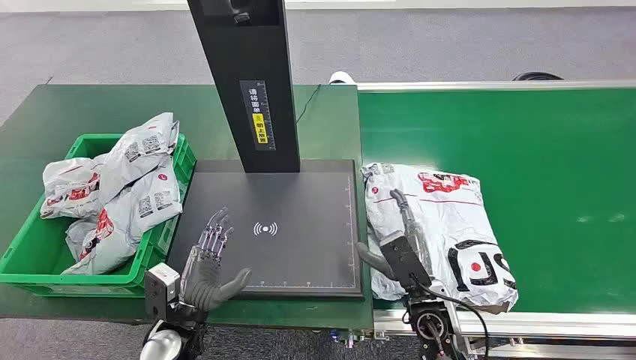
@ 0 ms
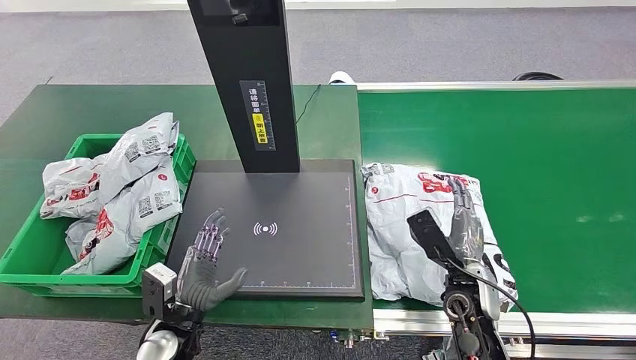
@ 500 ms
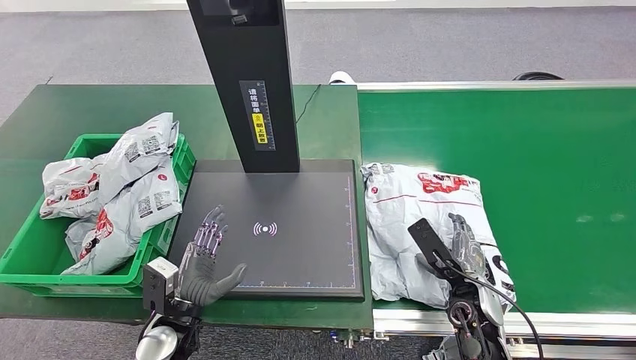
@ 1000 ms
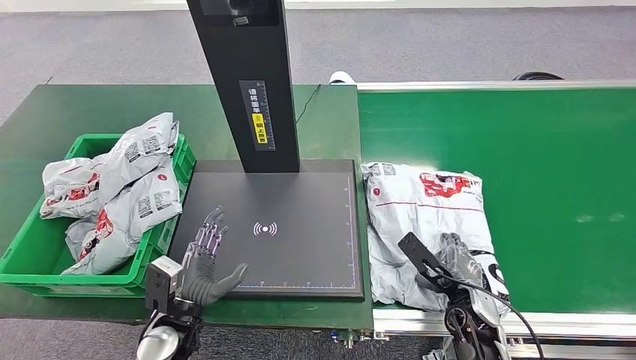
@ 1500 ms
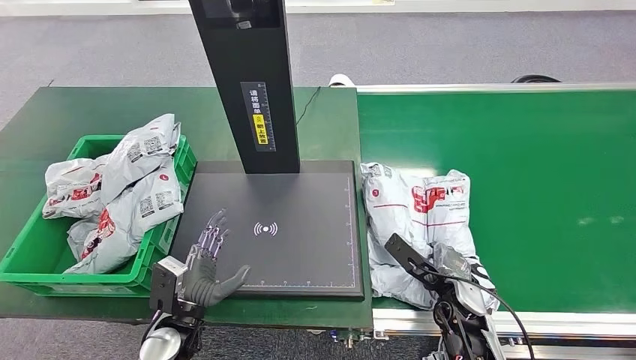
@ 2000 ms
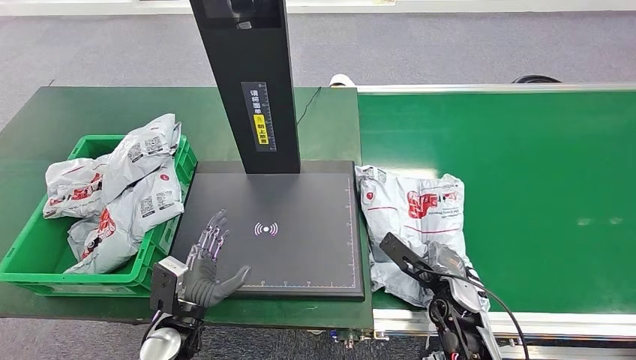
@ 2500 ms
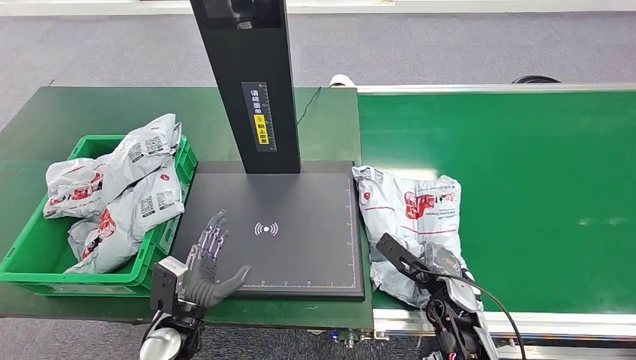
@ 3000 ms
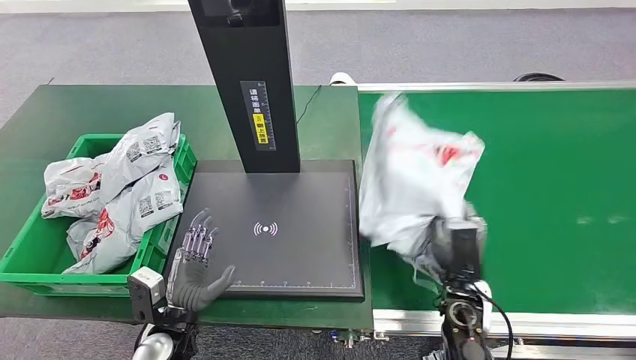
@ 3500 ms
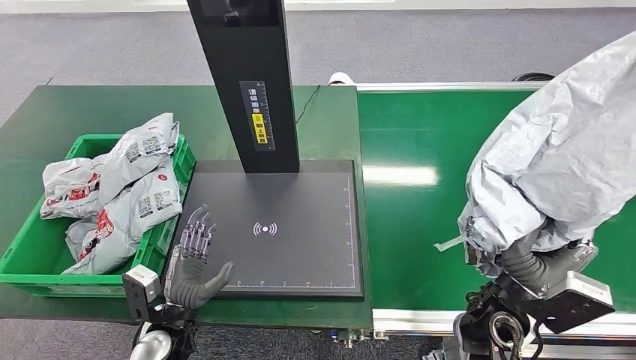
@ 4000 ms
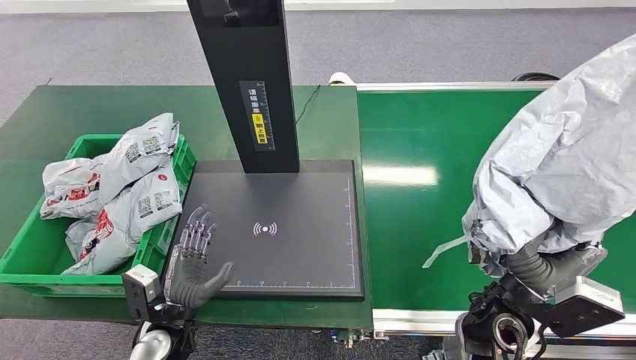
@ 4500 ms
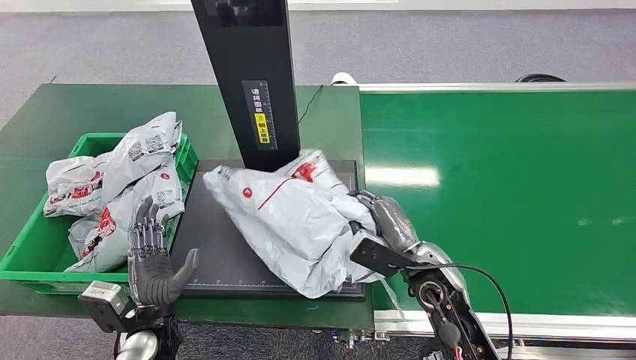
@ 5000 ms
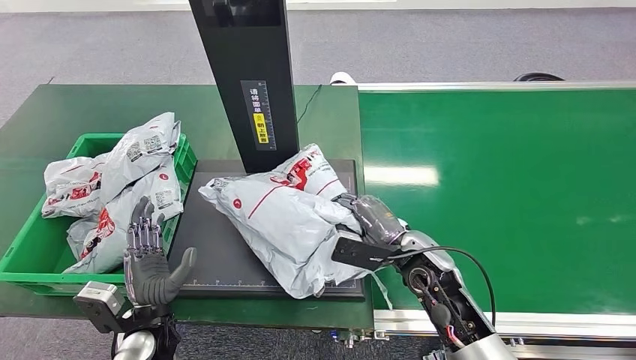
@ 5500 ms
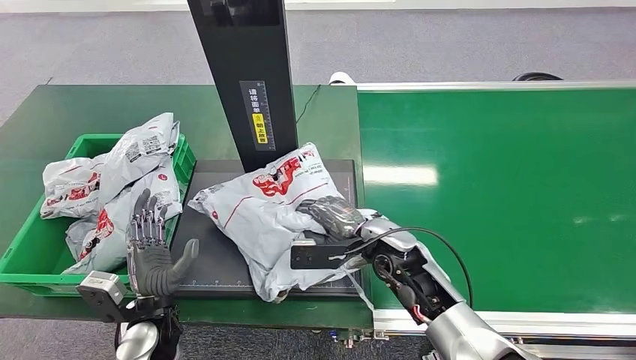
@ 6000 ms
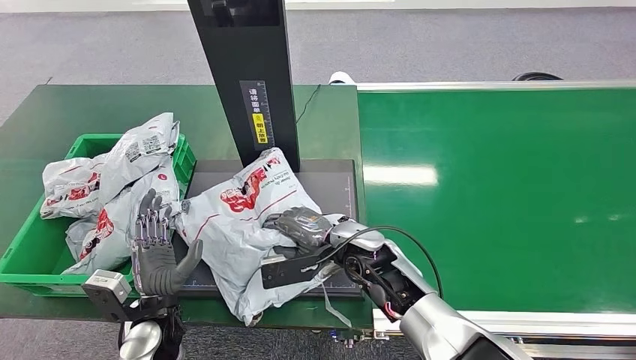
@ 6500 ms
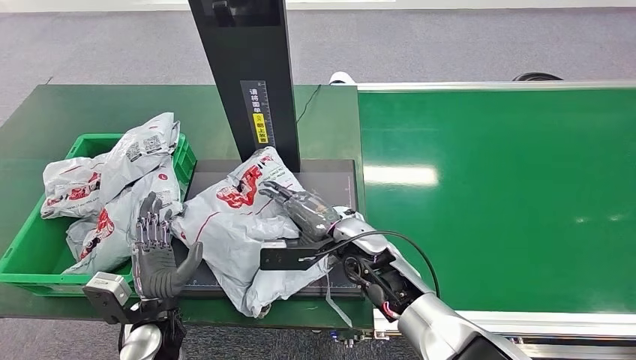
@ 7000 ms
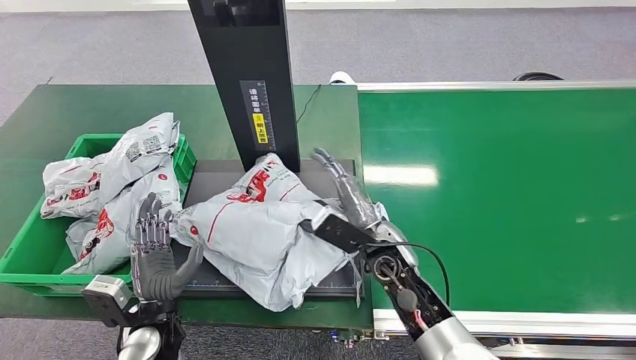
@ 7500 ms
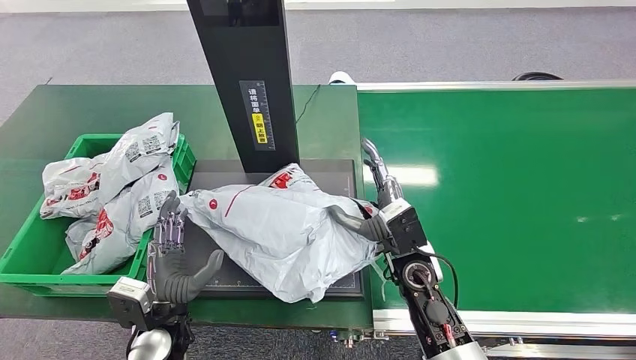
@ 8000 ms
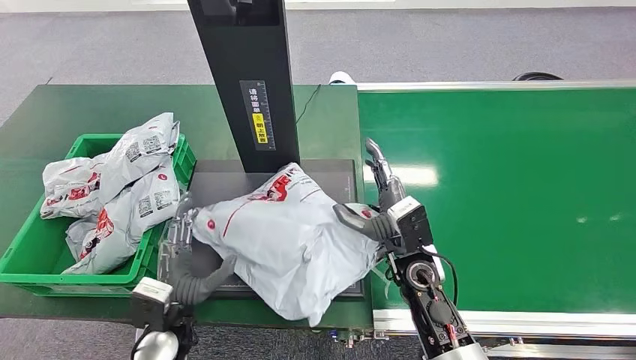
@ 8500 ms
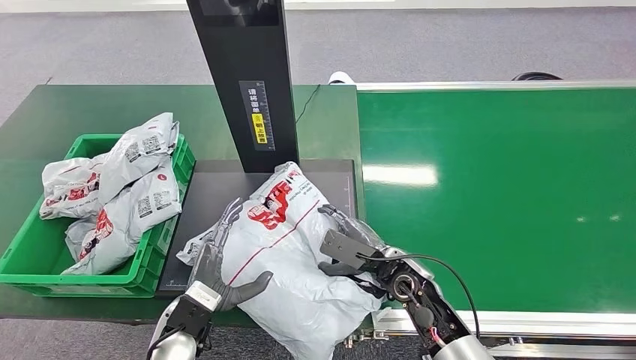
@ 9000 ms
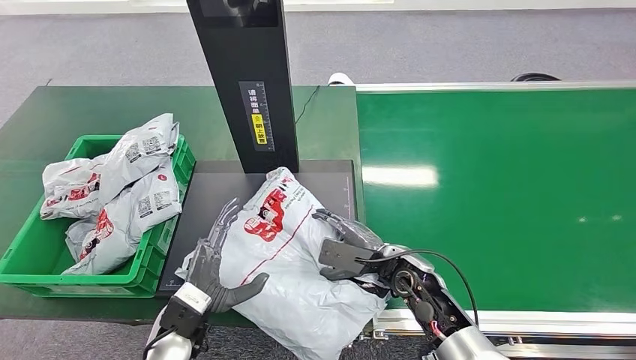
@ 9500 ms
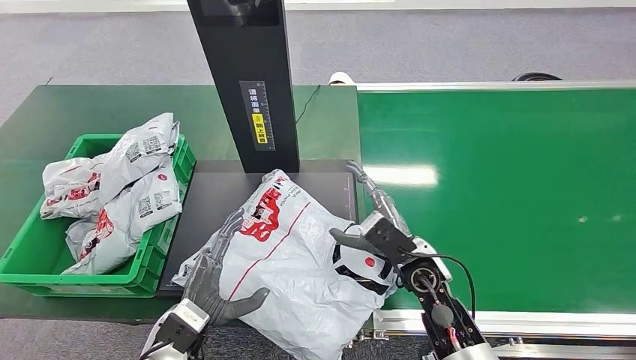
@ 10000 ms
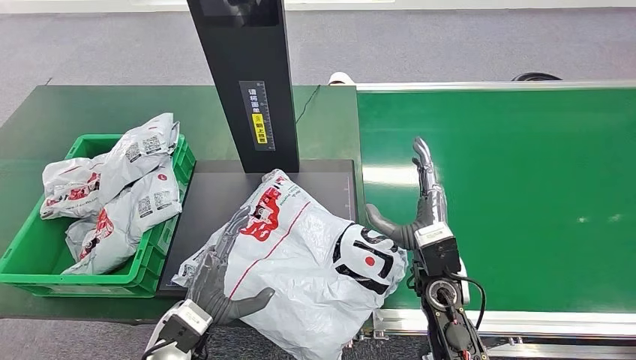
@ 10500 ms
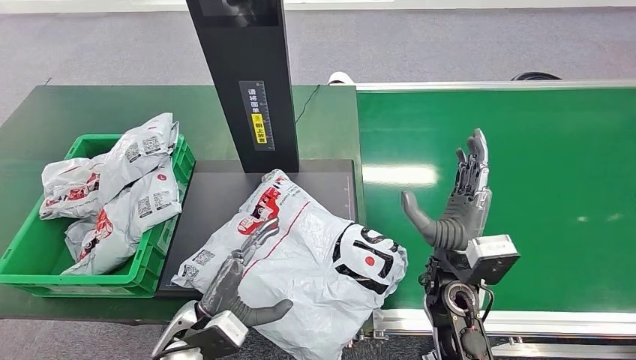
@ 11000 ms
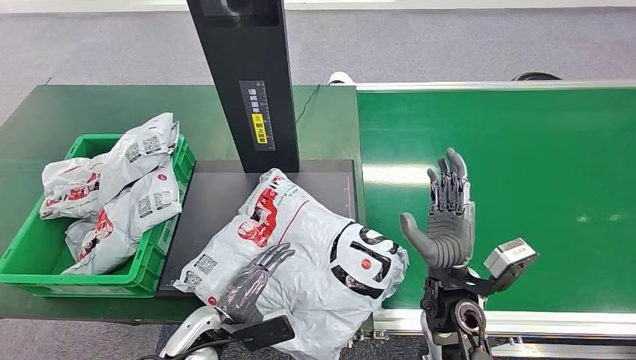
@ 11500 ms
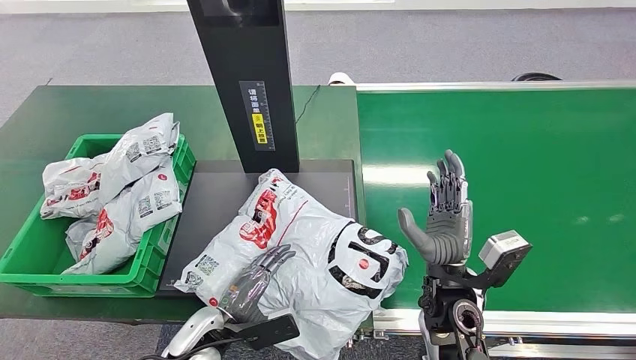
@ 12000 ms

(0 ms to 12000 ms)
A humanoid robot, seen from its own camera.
Step, 0 ms - 3500 ms: Pick up the package from the conveyor belt.
Step, 4000 ms - 8000 ms: Place the package onto the inbound machine.
10000 ms - 12000 ms: The right hand moves backward, roughly 5 cm.

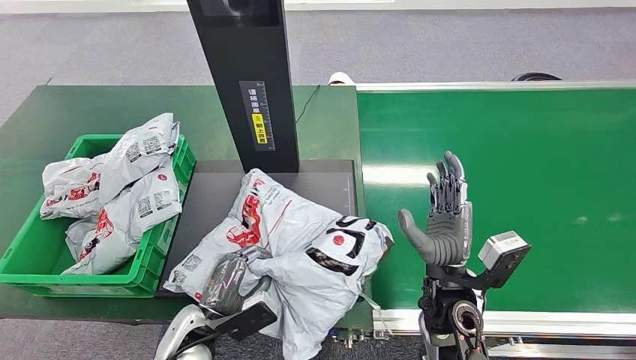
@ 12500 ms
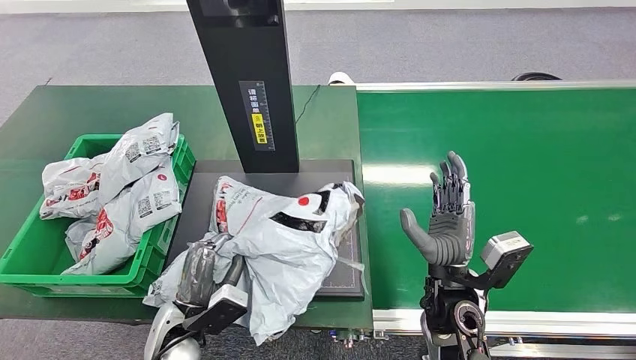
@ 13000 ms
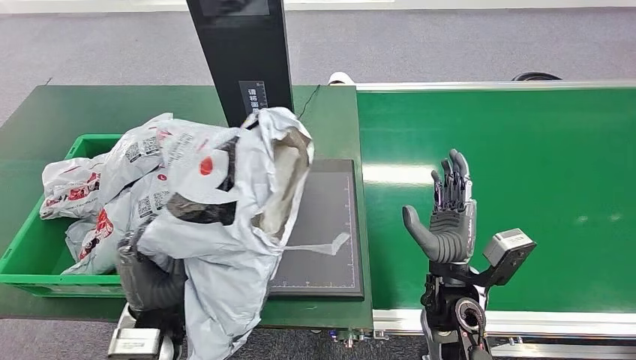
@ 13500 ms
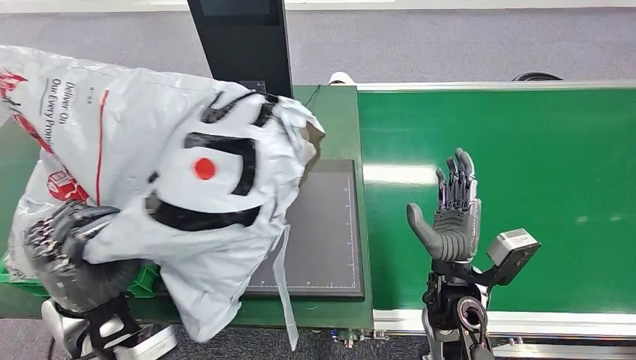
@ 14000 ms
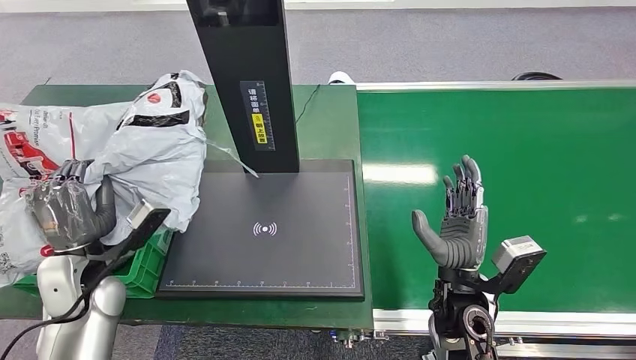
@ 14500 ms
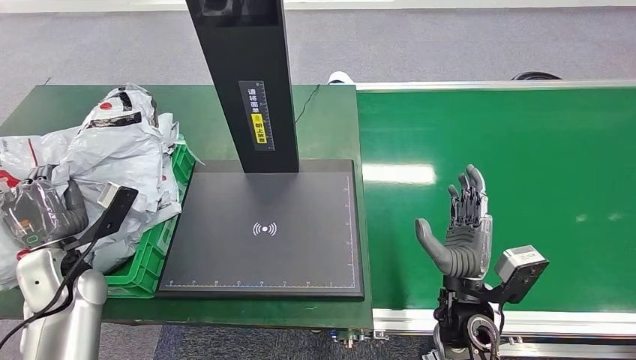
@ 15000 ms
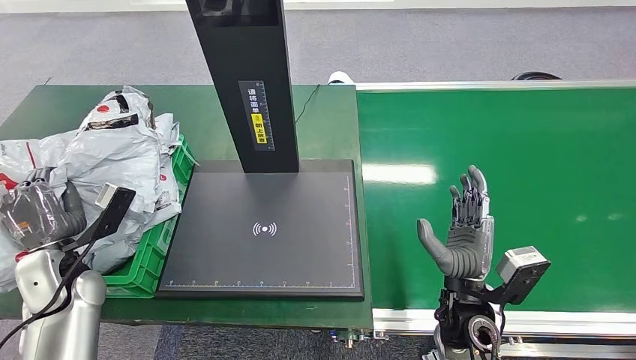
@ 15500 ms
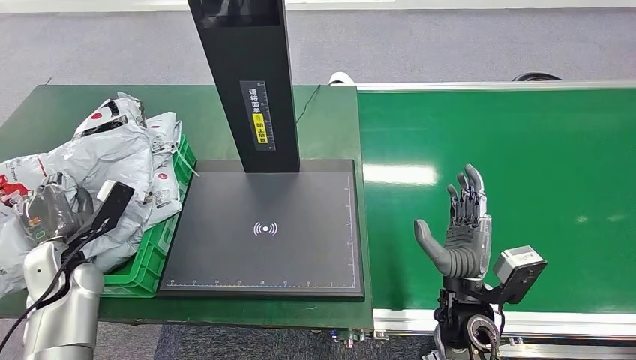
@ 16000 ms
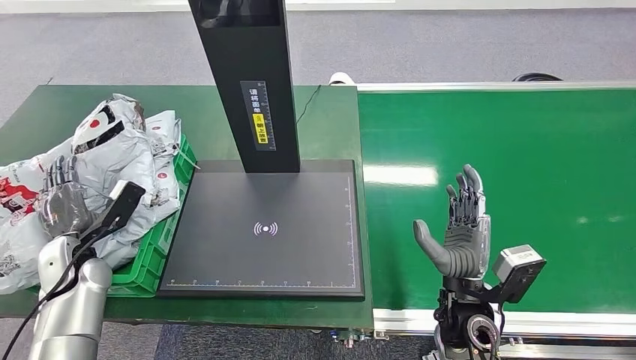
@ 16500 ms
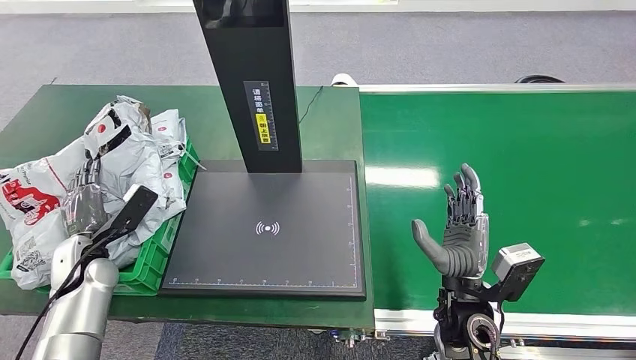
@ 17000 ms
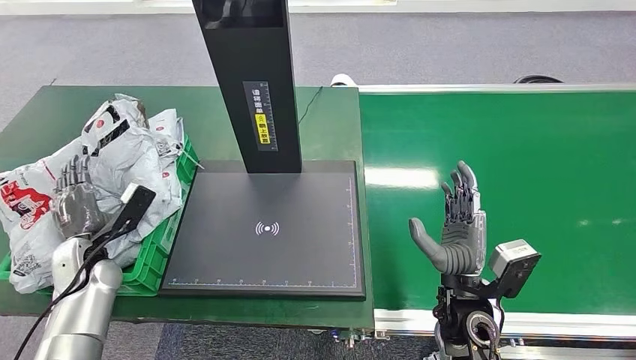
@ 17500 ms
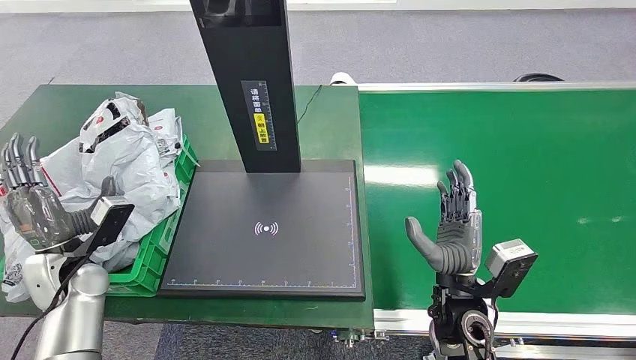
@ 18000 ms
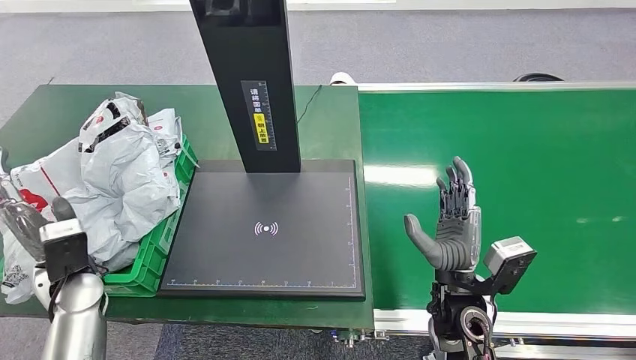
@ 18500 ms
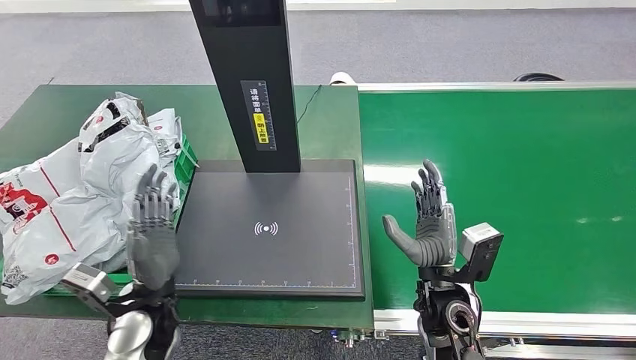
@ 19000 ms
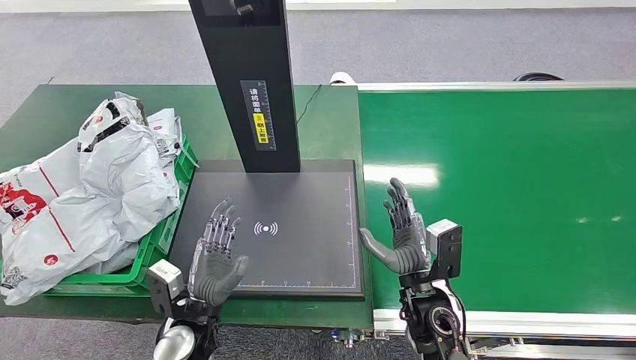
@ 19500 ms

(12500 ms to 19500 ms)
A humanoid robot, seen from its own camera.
Step, 14500 ms - 19500 ms: Place the package into the parcel locker.
14500 ms - 16000 ms: The left hand shifts about 5 cm to the left.

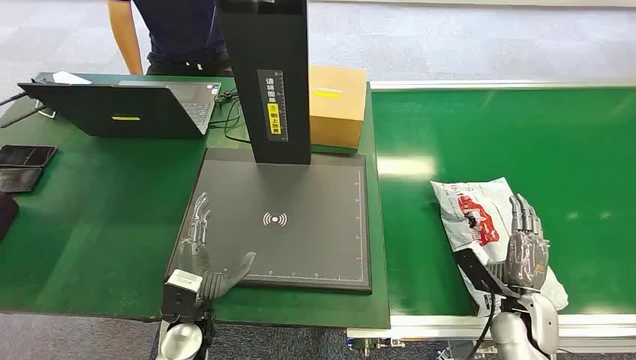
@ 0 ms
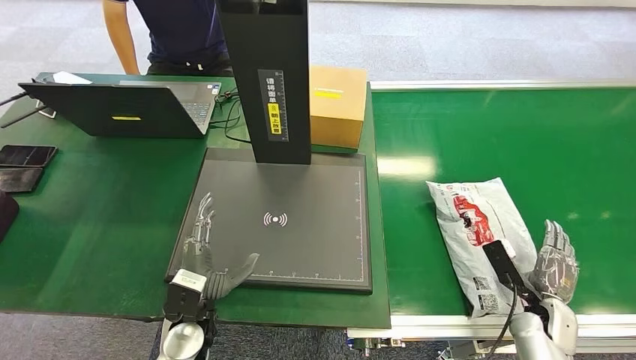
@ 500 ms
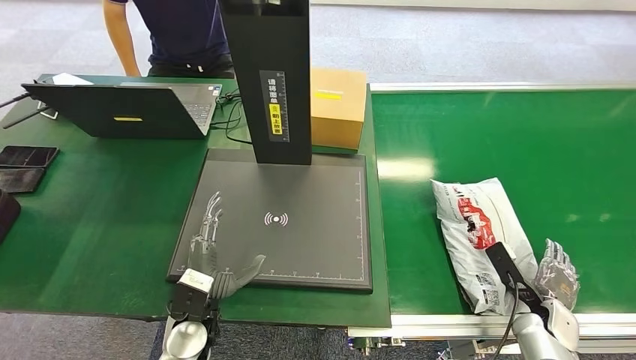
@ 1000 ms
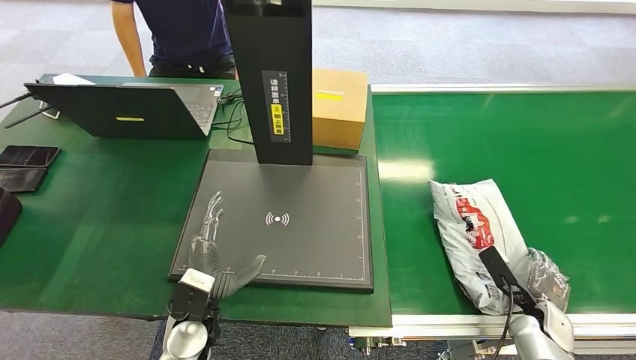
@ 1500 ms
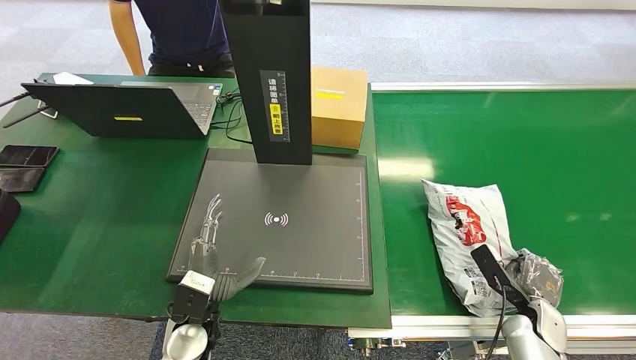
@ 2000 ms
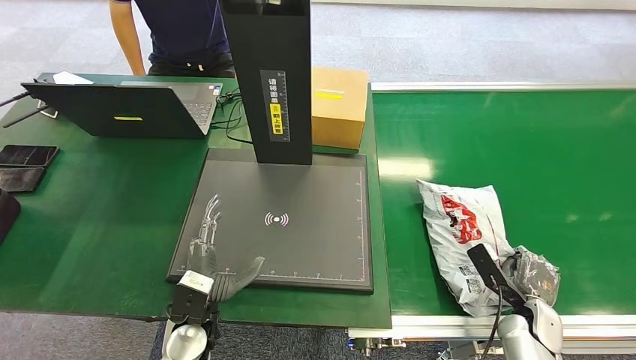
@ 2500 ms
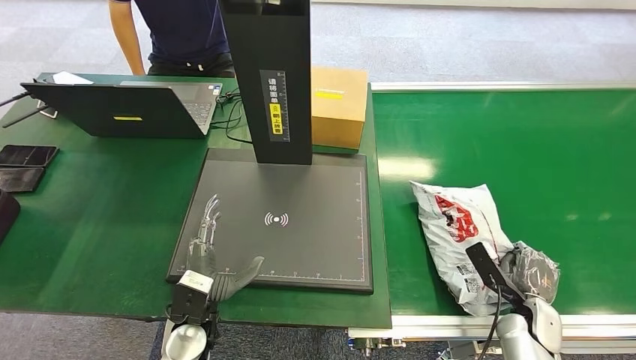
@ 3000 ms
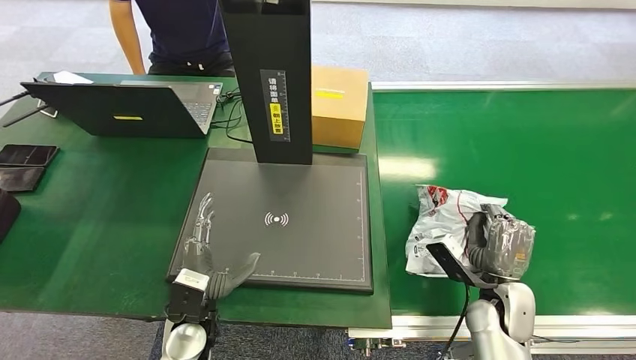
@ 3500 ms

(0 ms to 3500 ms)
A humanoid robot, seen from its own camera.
2000 ms - 3500 ms: The right hand travels to the left and upward by some 10 cm.
